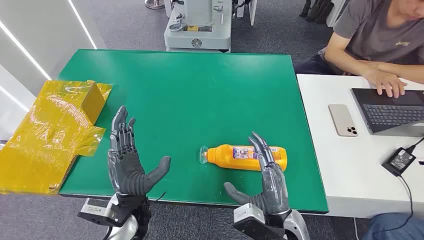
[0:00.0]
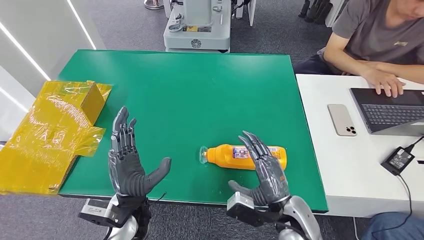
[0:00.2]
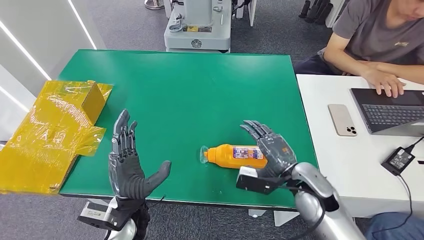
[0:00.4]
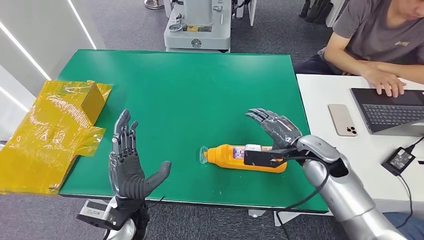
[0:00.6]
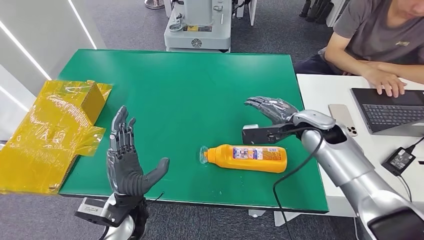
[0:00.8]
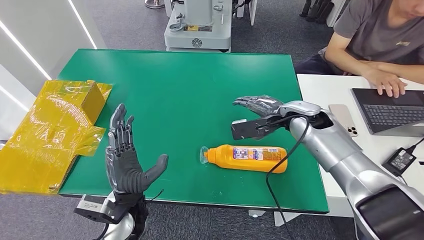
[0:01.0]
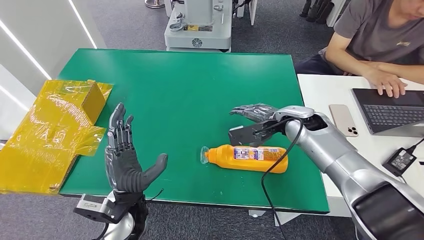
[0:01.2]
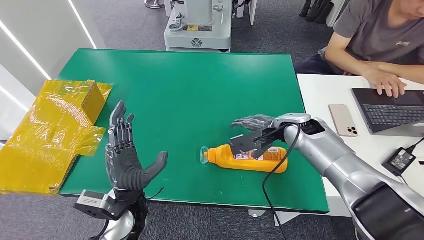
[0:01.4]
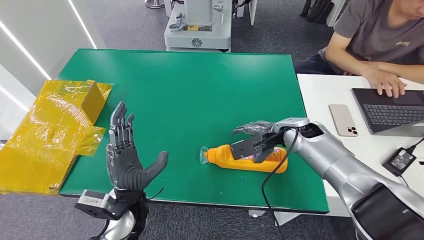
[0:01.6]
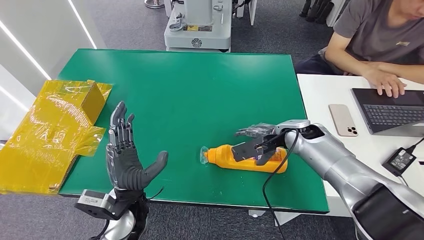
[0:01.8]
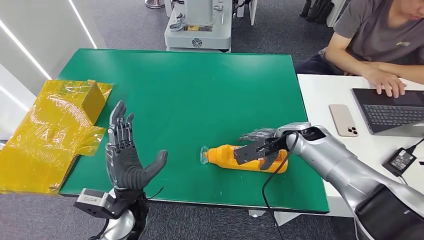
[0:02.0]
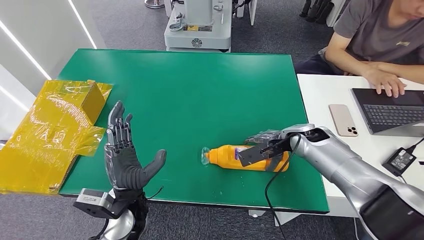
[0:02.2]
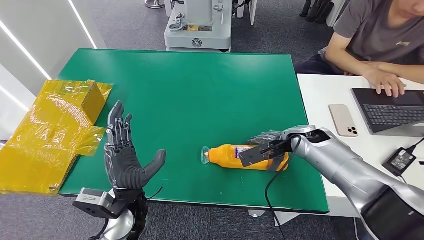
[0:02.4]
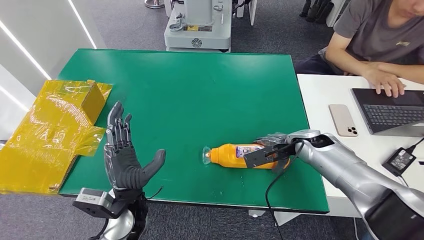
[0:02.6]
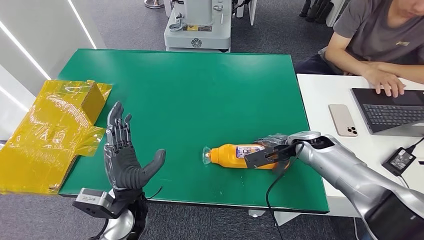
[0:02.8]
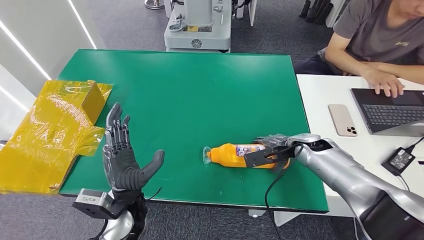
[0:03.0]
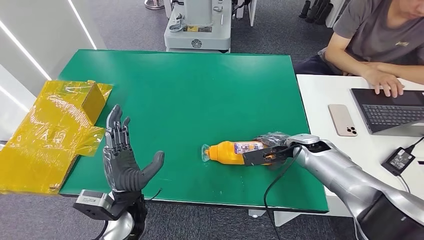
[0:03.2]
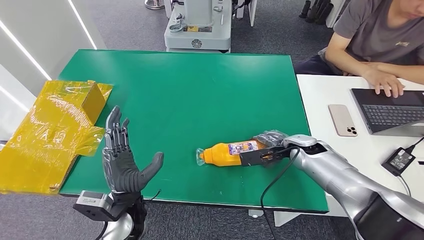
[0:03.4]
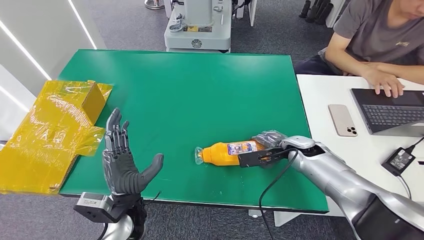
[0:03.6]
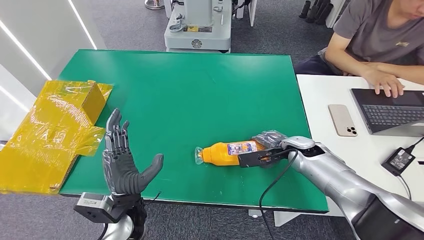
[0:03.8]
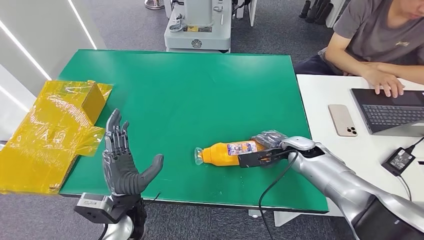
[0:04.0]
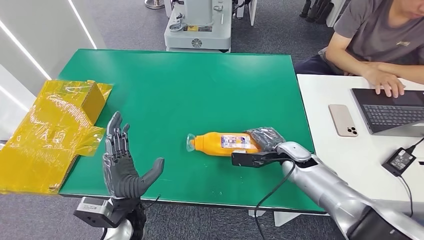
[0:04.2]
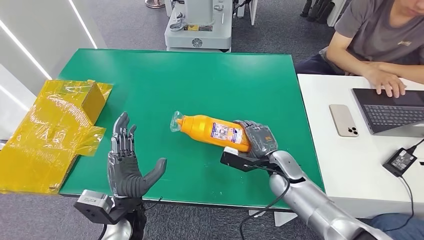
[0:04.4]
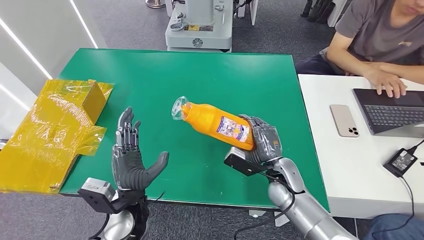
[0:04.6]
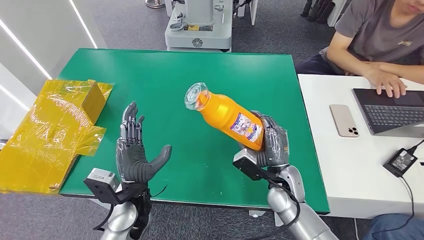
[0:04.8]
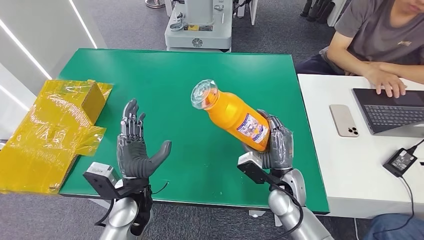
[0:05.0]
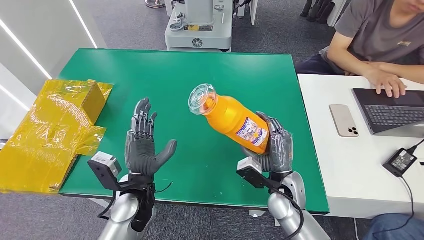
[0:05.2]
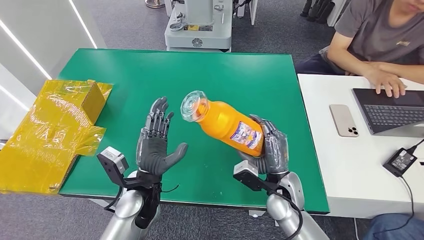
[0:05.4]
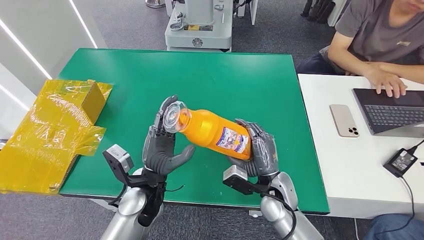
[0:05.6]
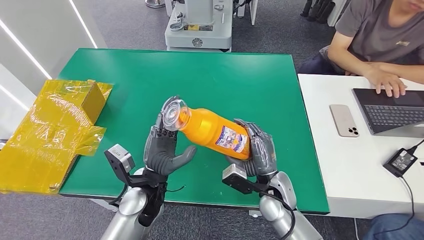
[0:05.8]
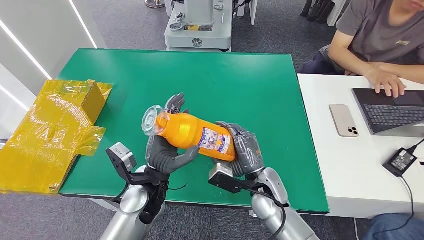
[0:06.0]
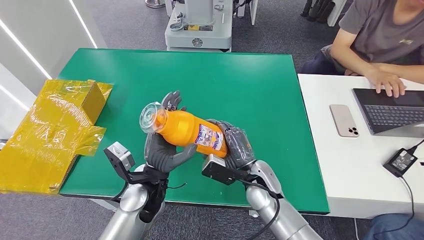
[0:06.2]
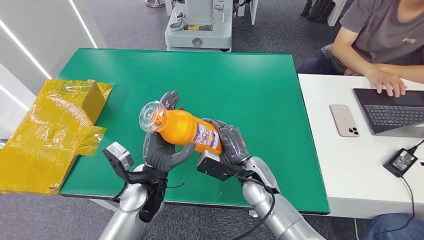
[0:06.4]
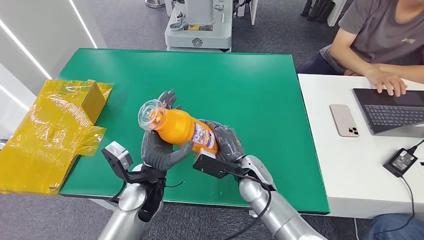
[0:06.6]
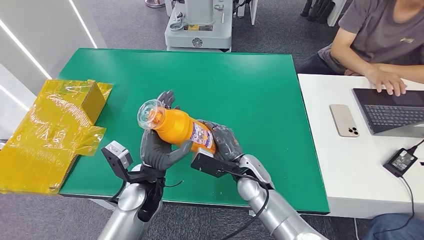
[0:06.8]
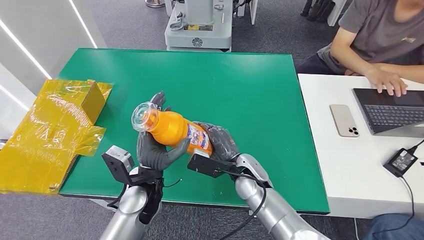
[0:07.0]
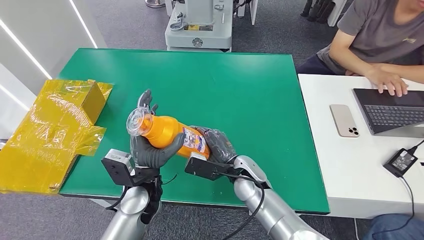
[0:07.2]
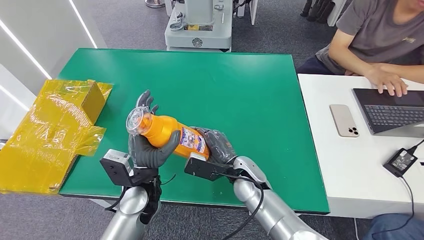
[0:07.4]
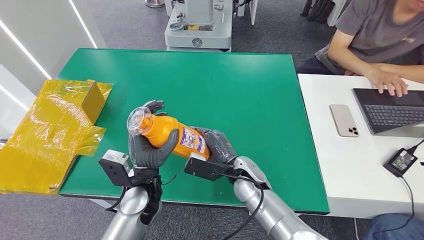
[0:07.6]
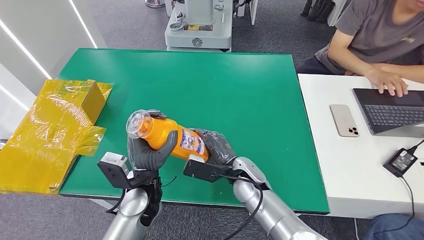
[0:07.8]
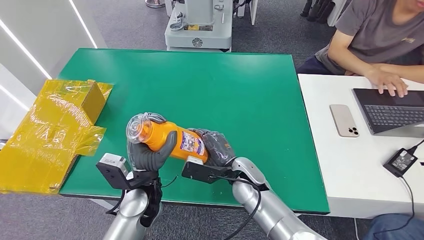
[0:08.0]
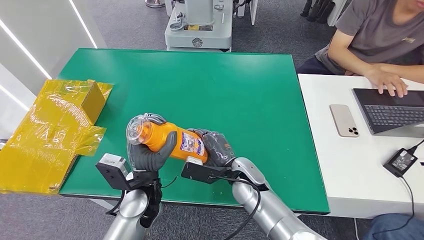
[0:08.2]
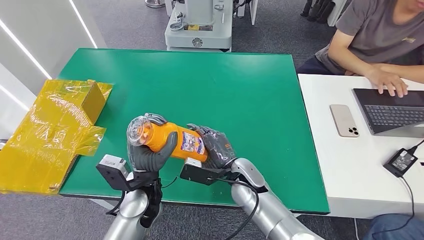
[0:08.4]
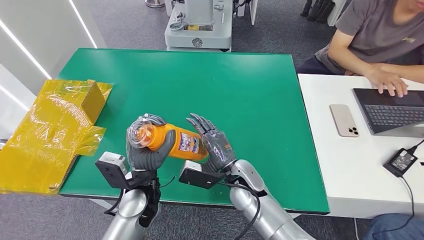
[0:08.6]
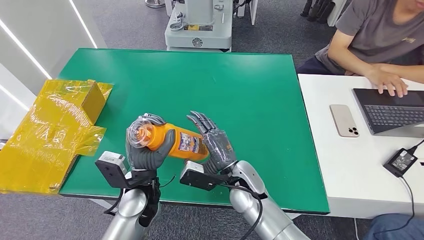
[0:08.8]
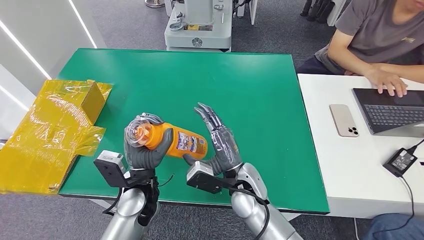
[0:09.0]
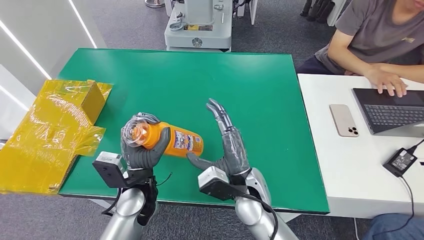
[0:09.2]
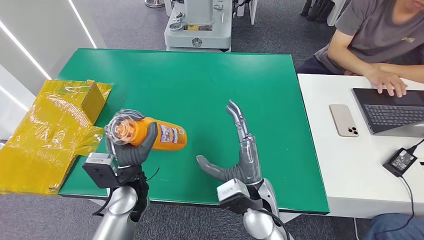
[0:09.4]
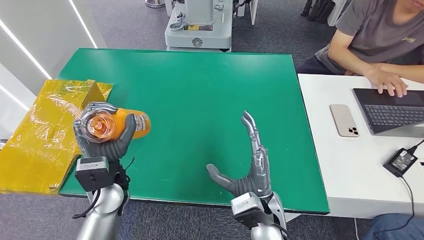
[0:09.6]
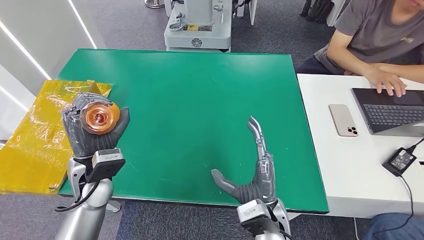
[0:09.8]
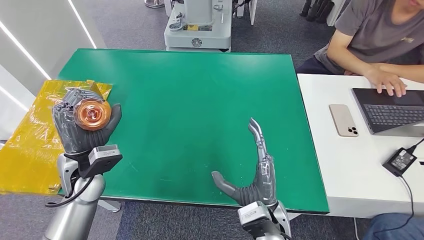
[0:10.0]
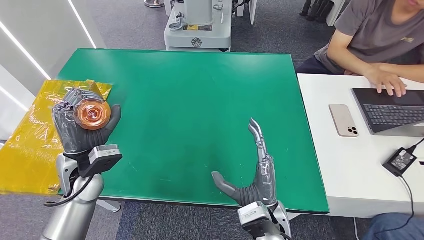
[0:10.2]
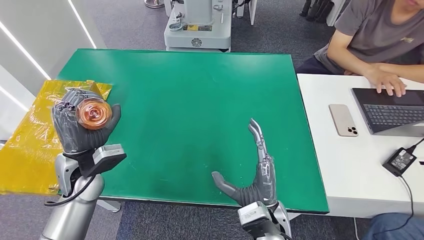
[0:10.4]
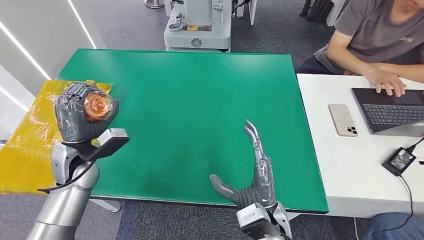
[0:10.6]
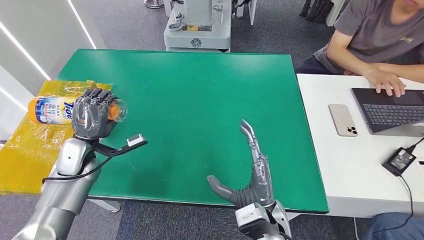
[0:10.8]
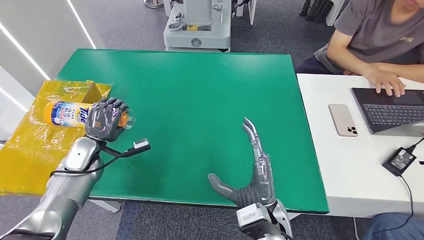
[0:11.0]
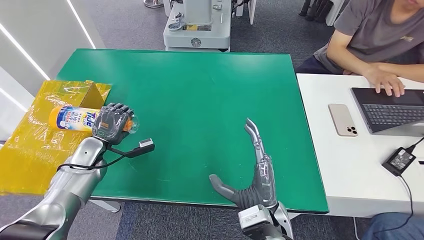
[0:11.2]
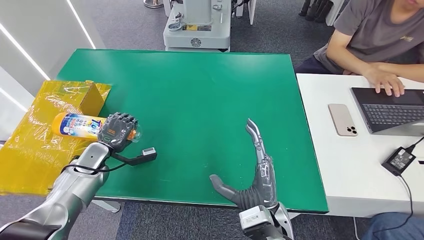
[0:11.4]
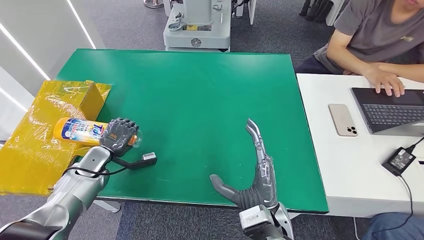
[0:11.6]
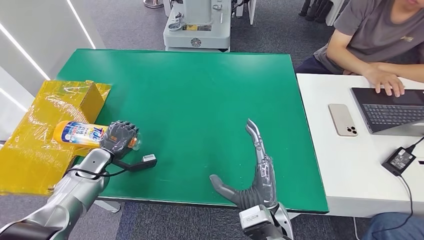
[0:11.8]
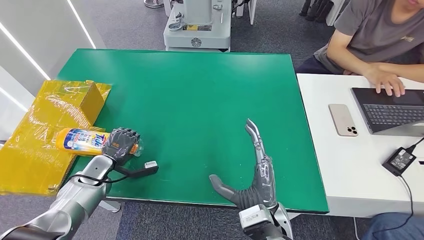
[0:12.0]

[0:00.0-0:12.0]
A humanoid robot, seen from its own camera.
Step, 0:00.0 to 0:04.8: Pick up the bottle from the table.
0:01.6 to 0:03.0: The right hand travels to the right by about 5 cm.
0:03.0 to 0:04.4: The right hand heads to the left, downward and backward, covering roughly 10 cm.
0:04.4 to 0:06.0: The right hand is displaced to the left and backward by roughly 10 cm. The left hand shifts roughly 5 cm forward.
0:06.0 to 0:07.6: The right hand travels to the left by about 5 cm.
0:09.0 to 0:10.4: The right hand shifts some 10 cm backward, while the left hand goes about 15 cm to the left.
0:10.4 to 0:12.0: The left hand travels downward and to the left by about 15 cm.

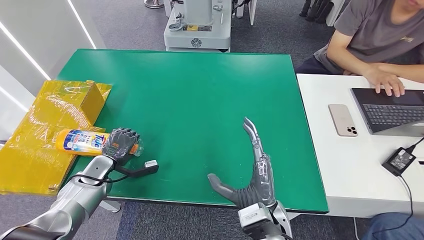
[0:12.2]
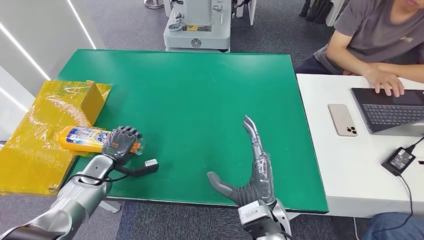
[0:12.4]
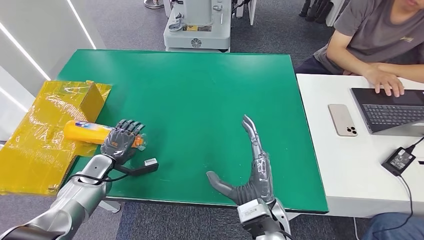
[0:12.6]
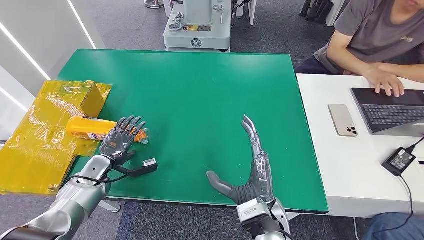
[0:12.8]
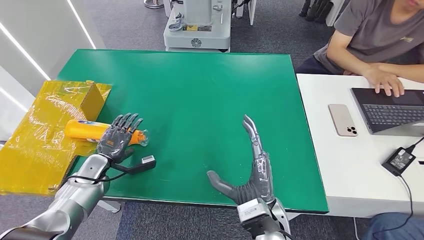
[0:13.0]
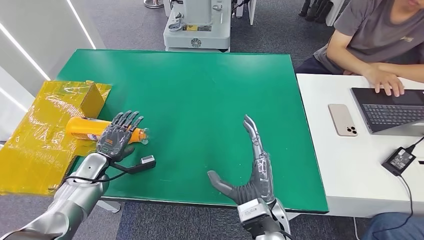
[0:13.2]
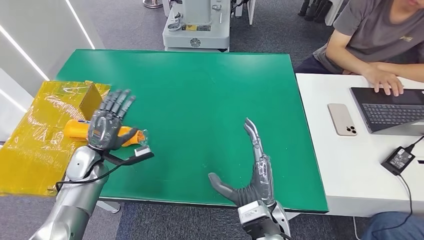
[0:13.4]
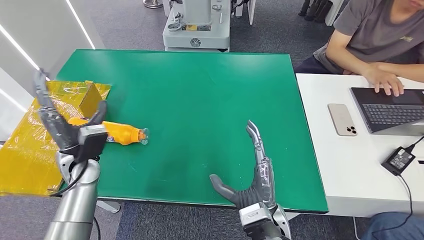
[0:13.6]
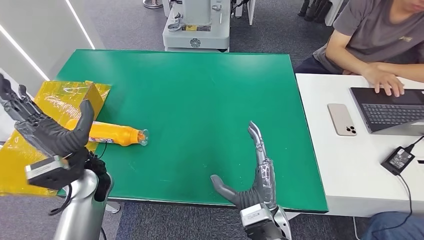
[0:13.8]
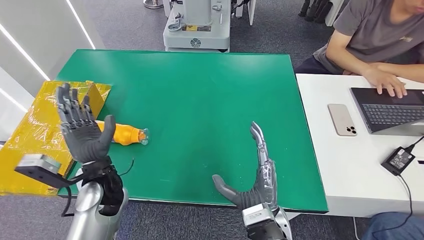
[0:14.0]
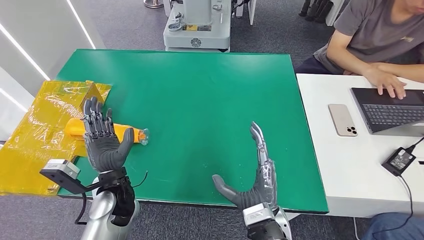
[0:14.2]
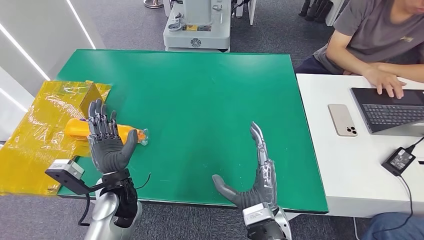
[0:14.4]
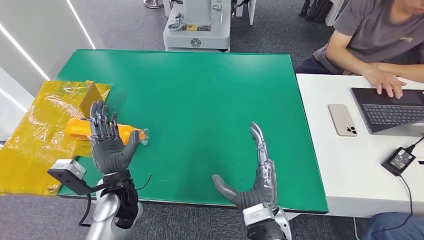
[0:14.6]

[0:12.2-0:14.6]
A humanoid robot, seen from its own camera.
Step, 0:12.2 to 0:14.6: Turn the bottle to the front side.
0:12.2 to 0:13.4: The left hand goes about 5 cm upward.
0:13.4 to 0:14.6: The left hand shifts approximately 15 cm to the right and backward.
